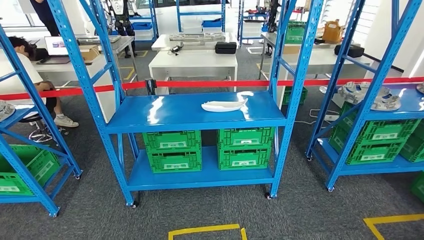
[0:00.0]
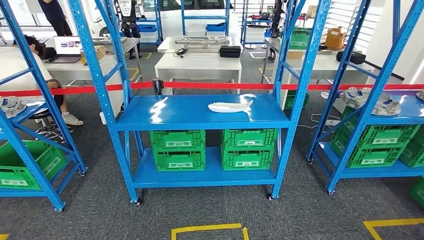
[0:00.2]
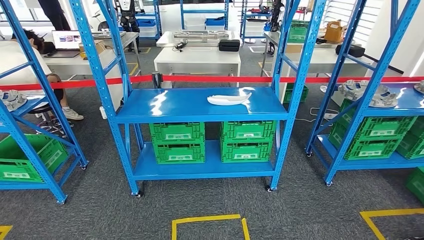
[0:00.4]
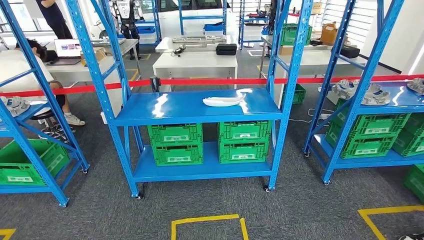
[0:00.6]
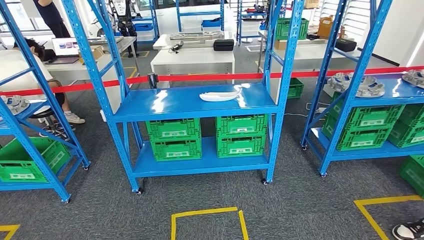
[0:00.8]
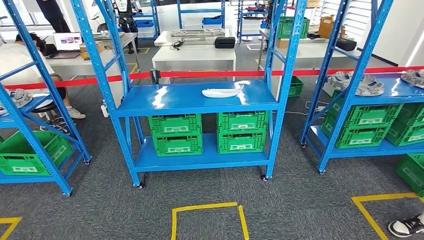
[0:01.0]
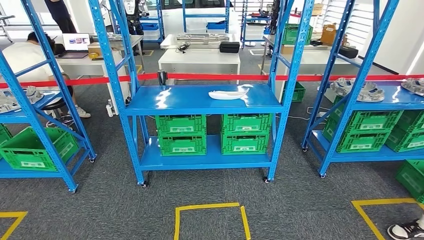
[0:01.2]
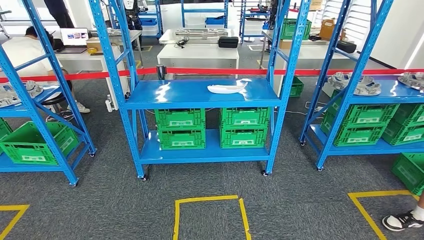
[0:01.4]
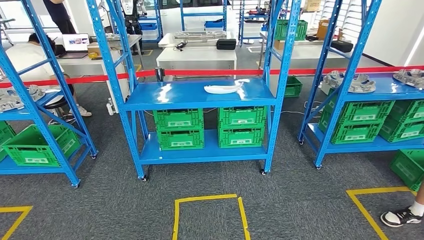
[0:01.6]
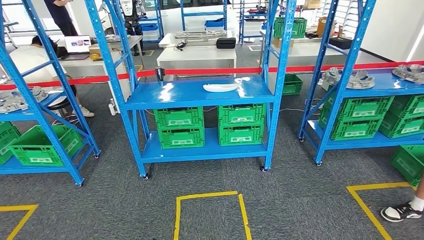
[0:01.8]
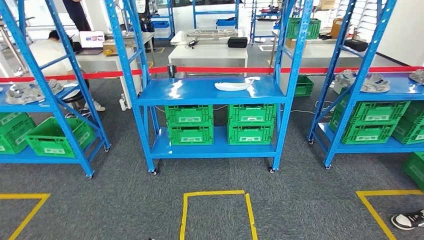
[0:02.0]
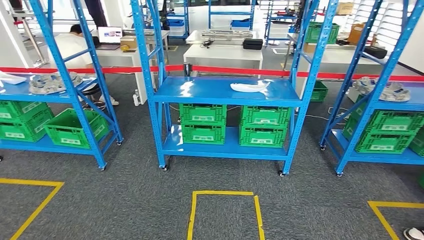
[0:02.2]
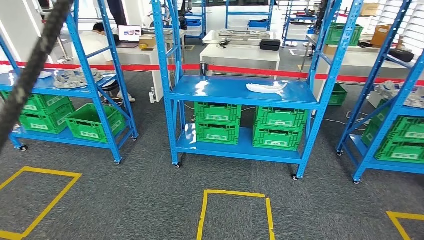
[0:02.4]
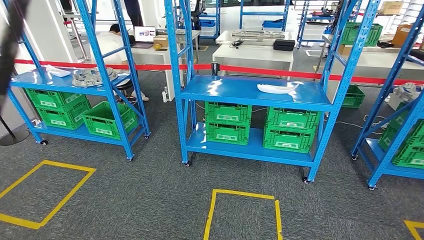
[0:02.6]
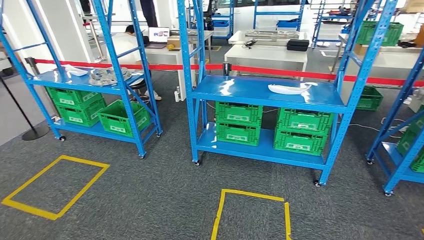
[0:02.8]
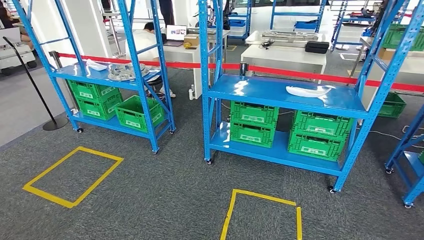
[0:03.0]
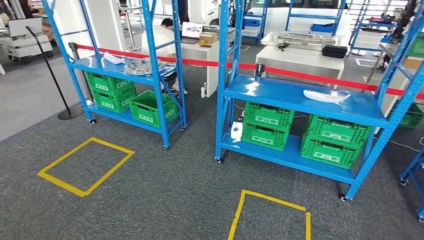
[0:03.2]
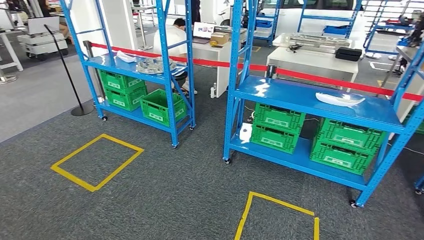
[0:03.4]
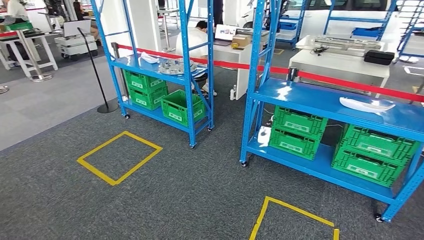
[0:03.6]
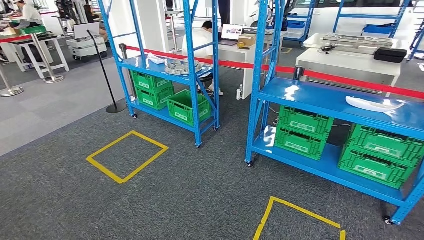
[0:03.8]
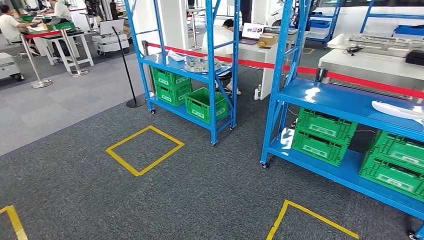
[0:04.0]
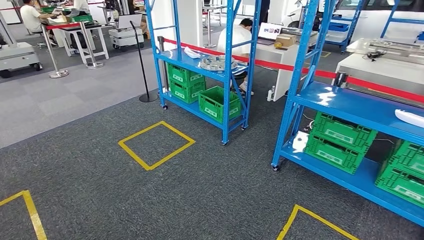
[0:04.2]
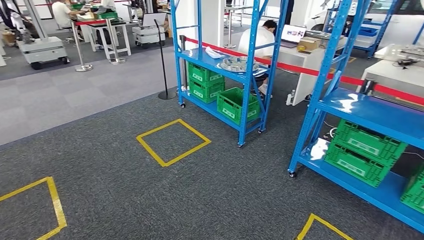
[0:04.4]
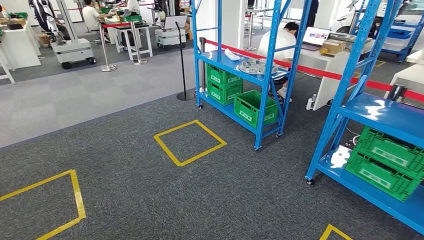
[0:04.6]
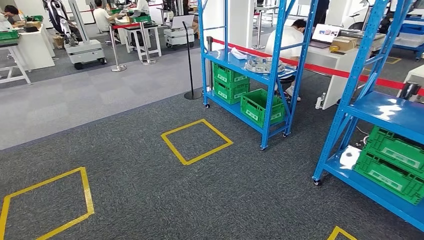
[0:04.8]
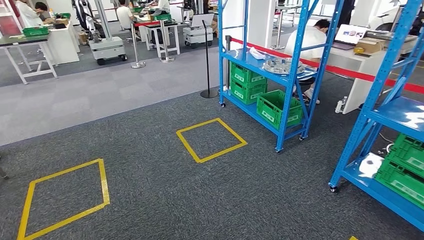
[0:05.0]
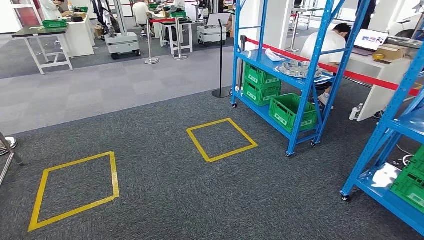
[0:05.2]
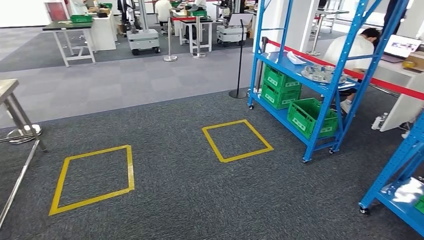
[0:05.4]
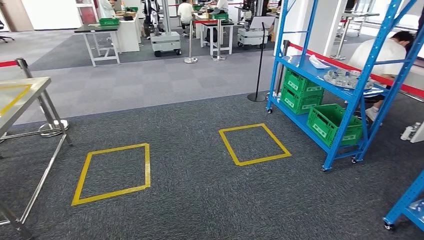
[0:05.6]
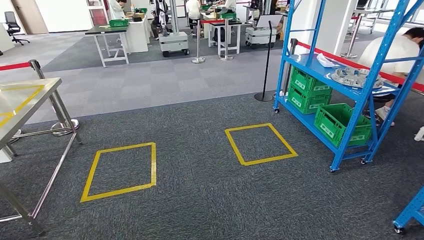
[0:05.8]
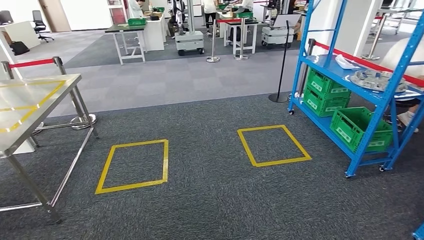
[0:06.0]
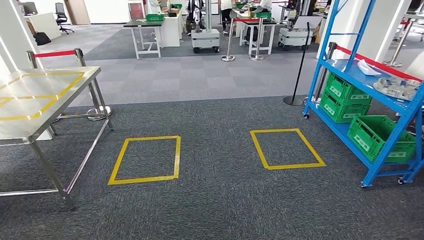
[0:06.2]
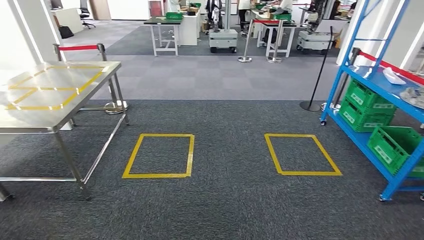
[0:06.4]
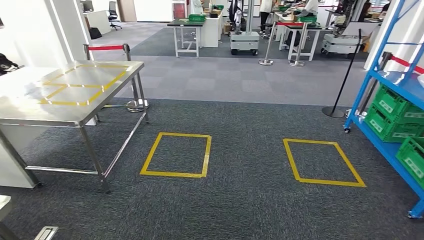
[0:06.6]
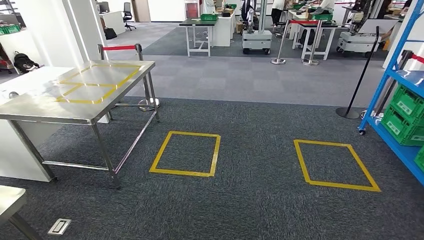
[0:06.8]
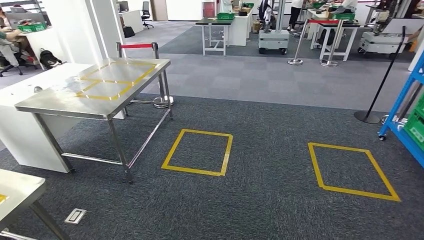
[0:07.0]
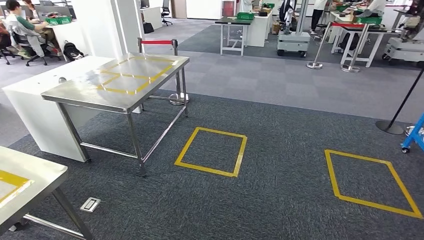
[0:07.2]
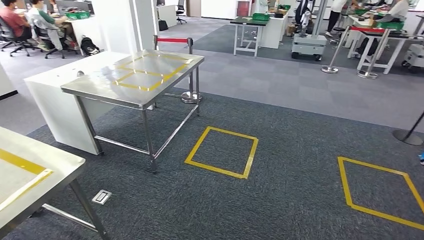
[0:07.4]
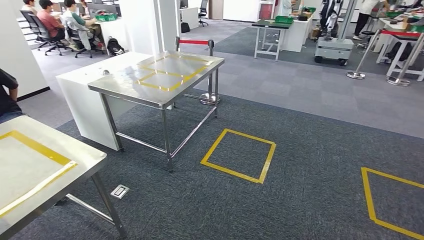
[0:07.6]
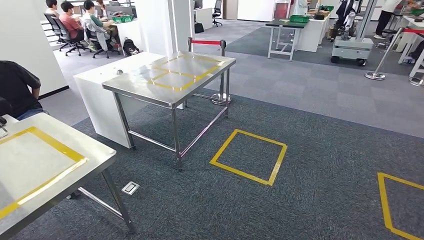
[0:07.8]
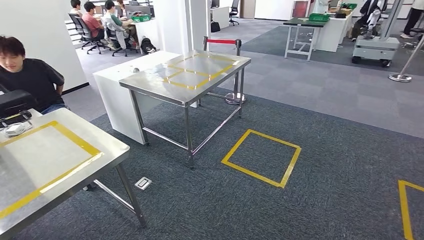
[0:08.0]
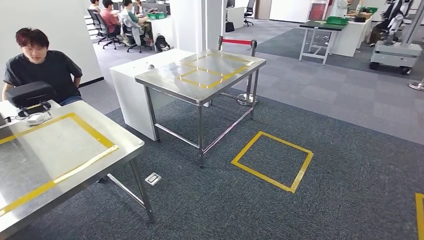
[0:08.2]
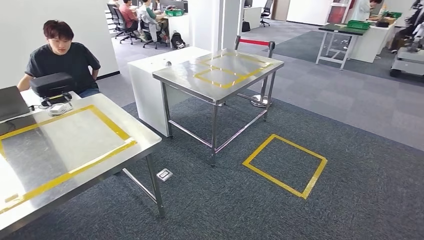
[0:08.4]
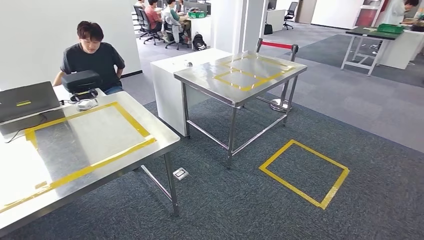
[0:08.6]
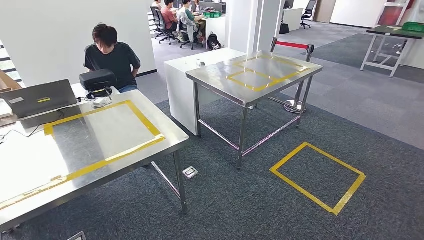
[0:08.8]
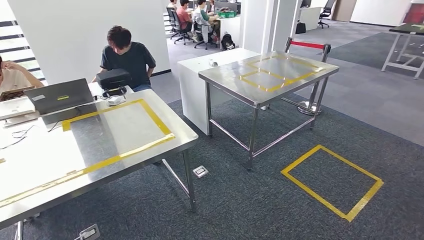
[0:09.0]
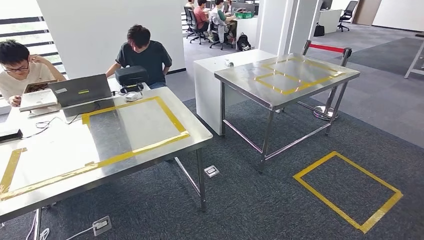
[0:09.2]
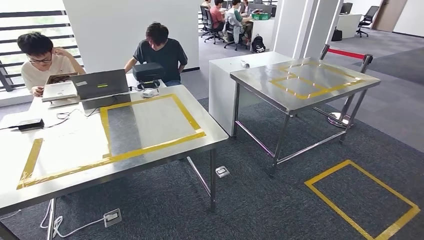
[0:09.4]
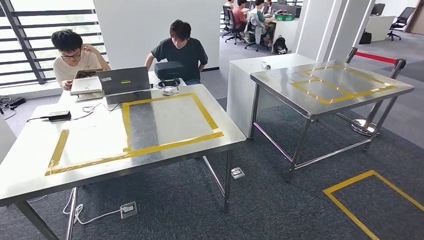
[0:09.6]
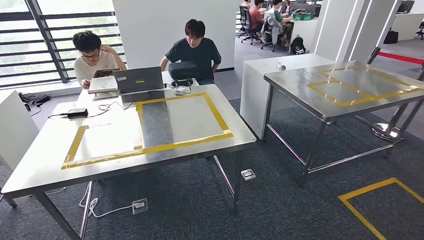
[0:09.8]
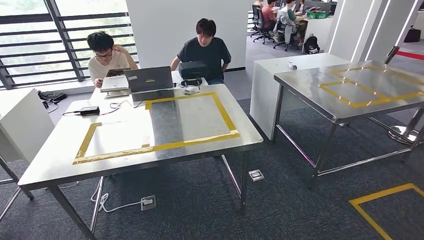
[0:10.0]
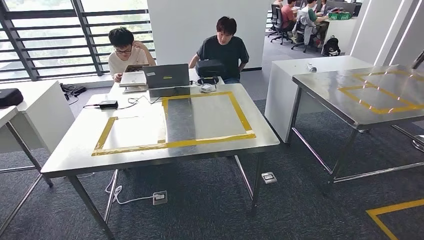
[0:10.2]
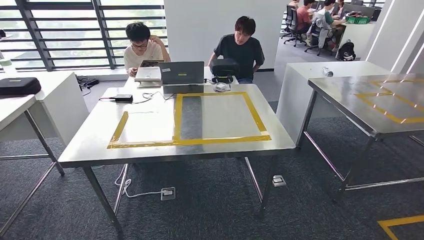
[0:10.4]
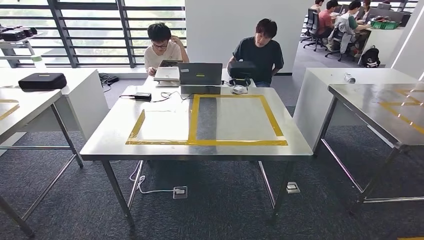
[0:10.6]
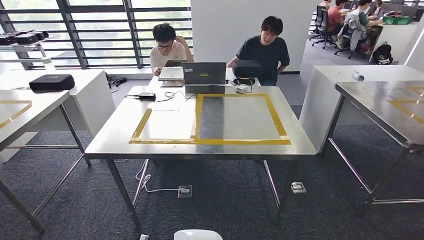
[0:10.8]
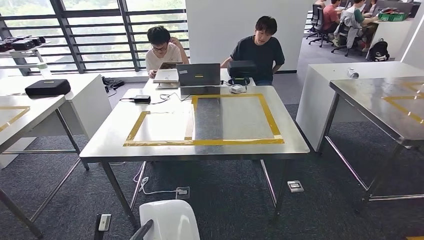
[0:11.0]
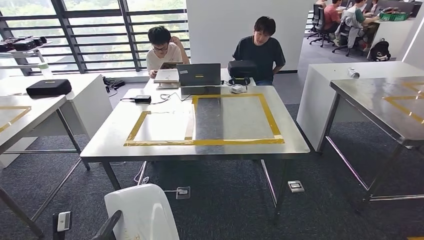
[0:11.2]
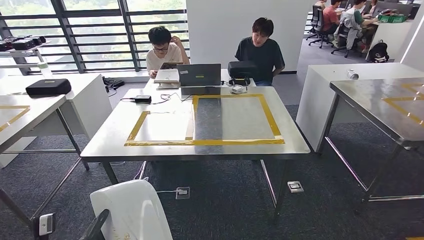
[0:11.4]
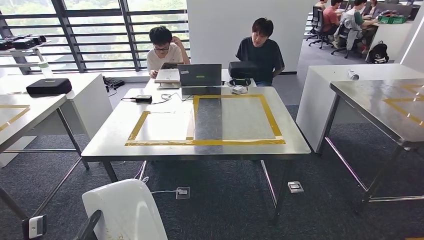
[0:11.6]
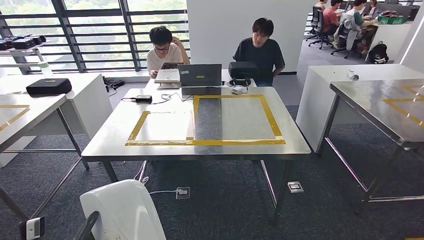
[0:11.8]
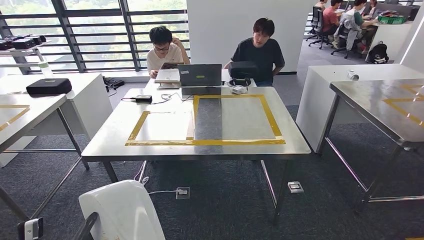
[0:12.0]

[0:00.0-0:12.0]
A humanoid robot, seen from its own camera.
Step, 0:00.0 to 0:08.4: Move the small parts to the workbench.

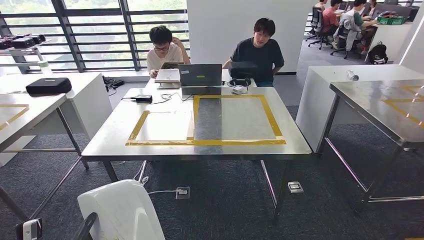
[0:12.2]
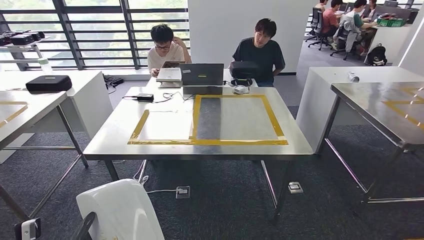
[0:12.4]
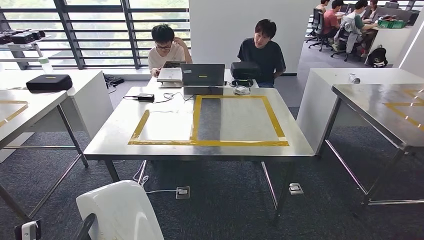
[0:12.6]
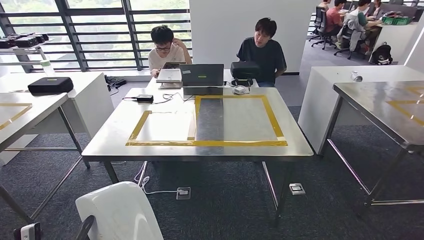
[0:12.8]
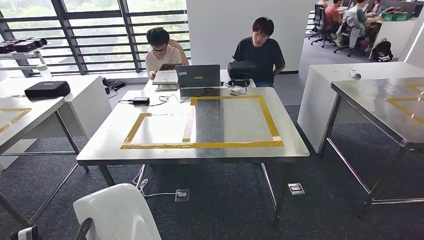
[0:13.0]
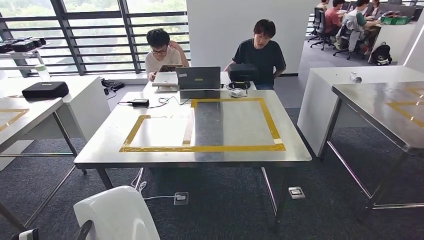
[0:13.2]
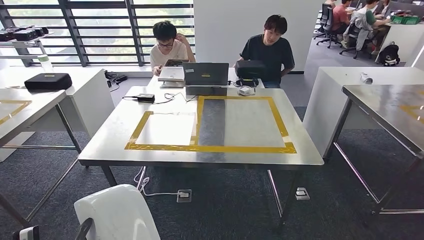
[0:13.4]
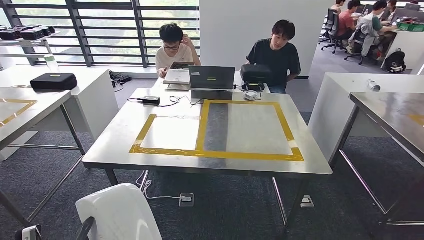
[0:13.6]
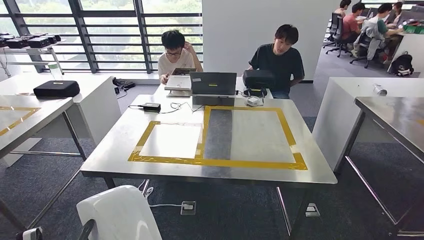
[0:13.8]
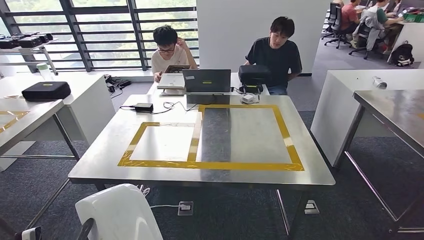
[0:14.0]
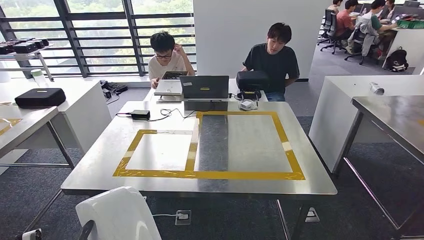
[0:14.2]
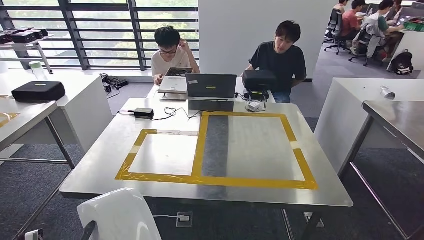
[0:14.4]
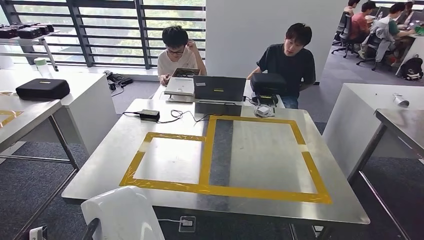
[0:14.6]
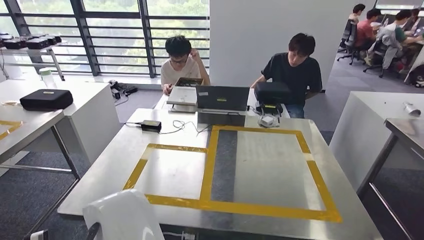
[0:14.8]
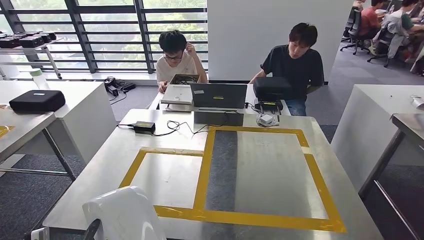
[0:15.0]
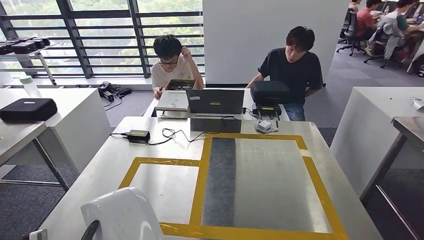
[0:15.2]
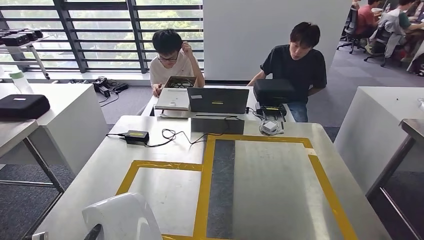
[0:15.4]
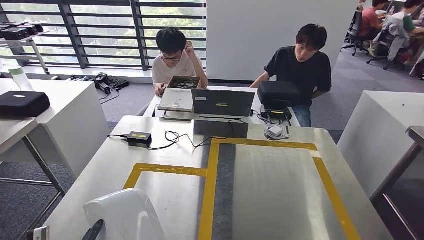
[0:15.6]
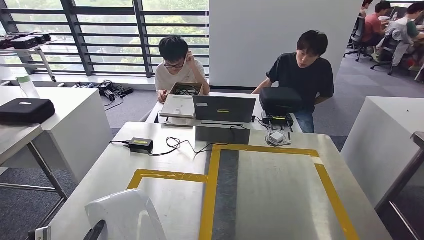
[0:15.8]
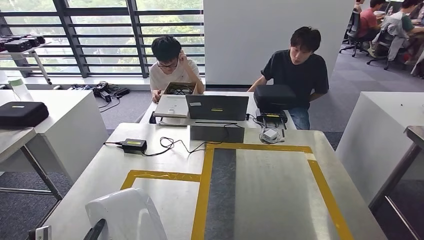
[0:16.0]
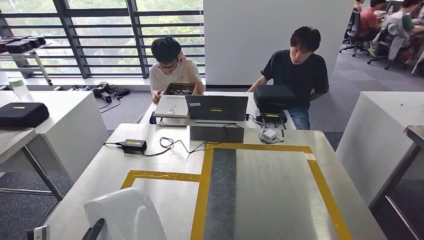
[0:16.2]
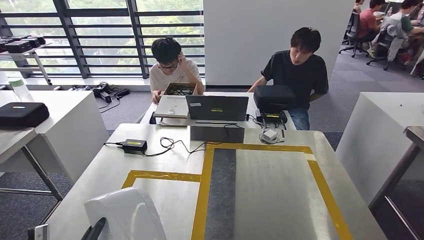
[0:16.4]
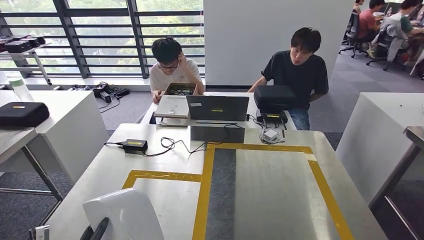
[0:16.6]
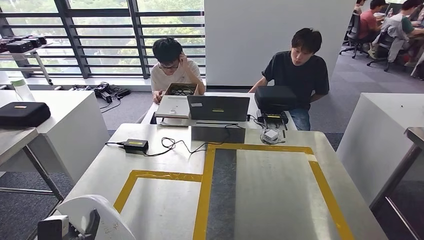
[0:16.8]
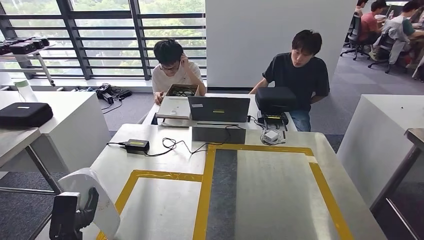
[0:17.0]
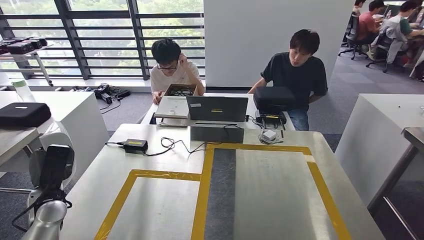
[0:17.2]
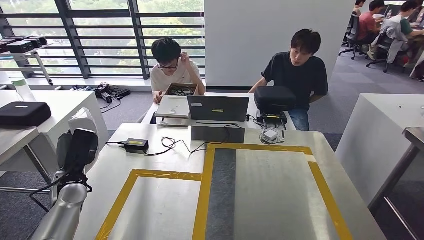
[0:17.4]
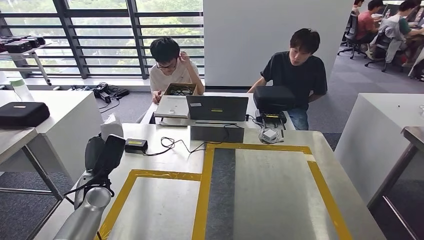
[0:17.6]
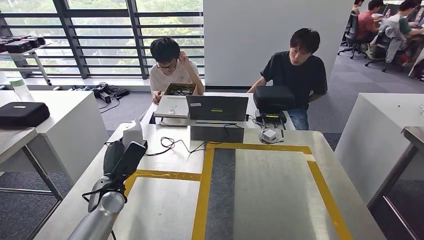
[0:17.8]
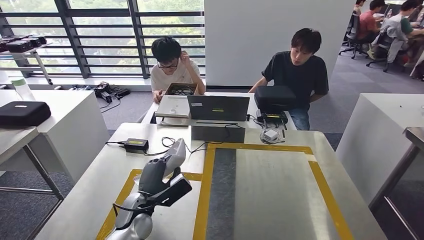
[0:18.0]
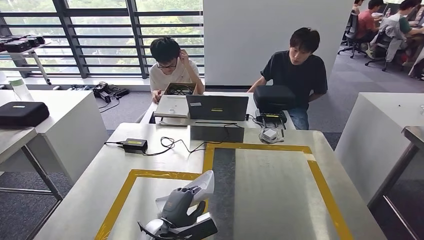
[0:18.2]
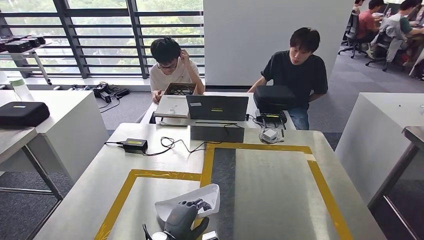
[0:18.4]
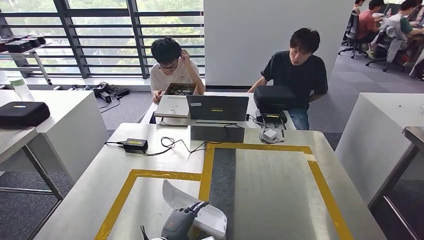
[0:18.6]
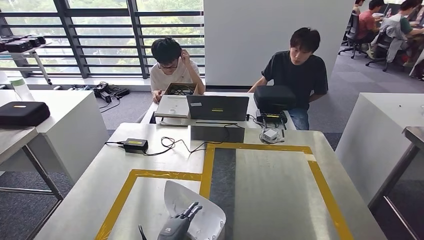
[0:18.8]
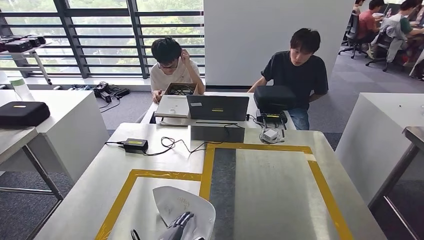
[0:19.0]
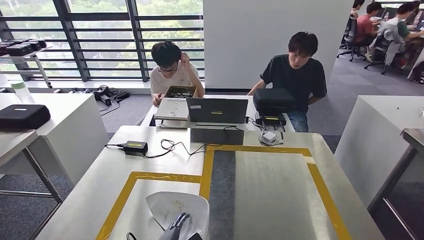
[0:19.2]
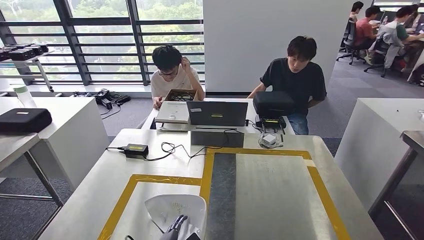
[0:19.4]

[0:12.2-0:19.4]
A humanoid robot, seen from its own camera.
0:16.6 to 0:18.0: The left hand heads forward and to the right, covering approximately 20 cm.
